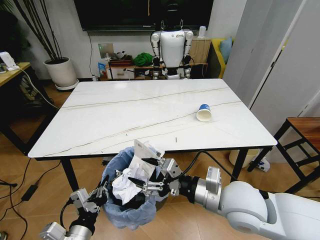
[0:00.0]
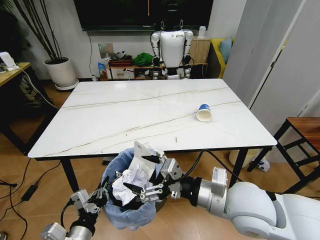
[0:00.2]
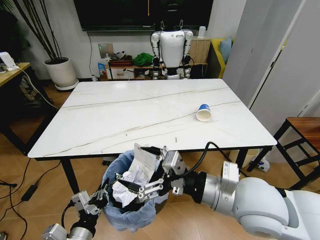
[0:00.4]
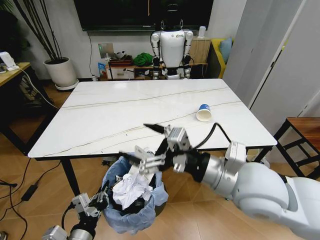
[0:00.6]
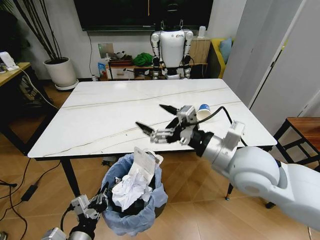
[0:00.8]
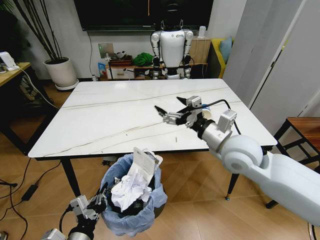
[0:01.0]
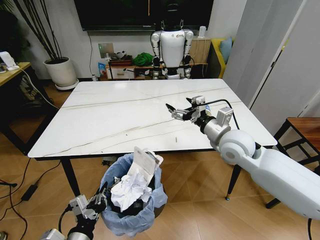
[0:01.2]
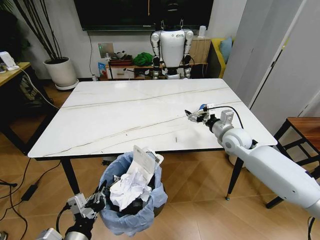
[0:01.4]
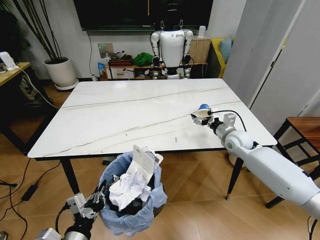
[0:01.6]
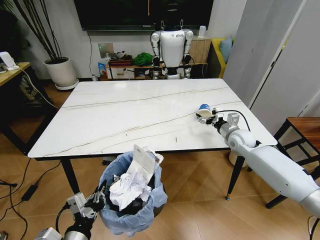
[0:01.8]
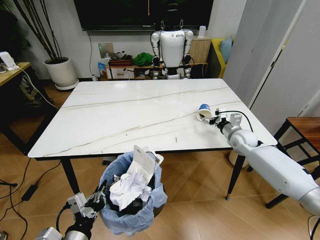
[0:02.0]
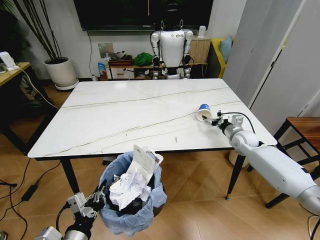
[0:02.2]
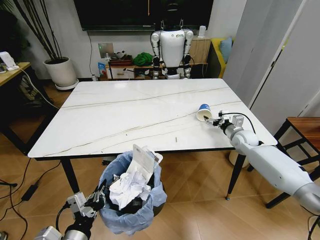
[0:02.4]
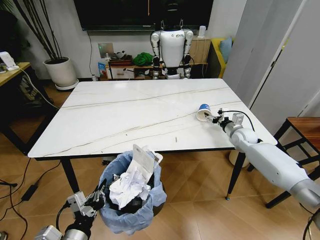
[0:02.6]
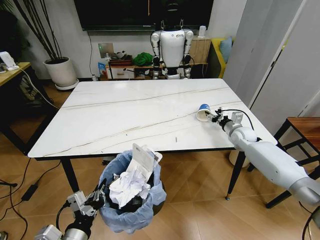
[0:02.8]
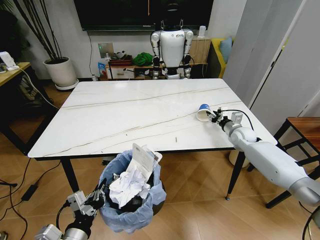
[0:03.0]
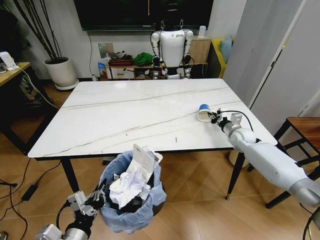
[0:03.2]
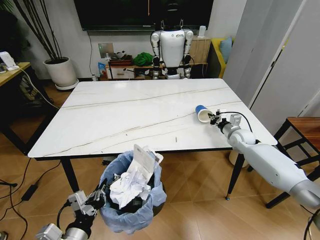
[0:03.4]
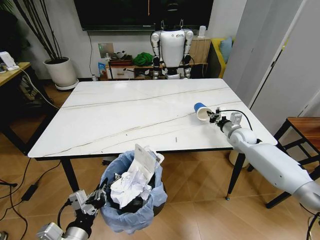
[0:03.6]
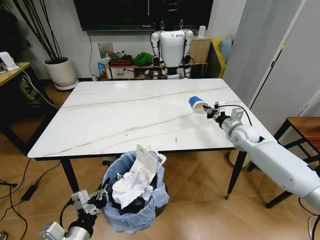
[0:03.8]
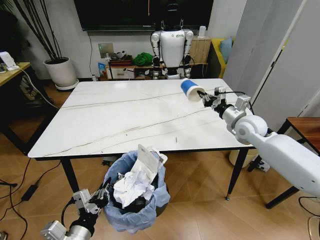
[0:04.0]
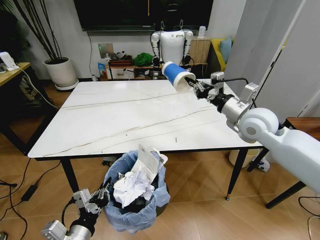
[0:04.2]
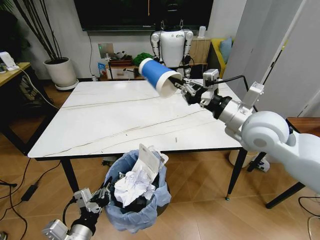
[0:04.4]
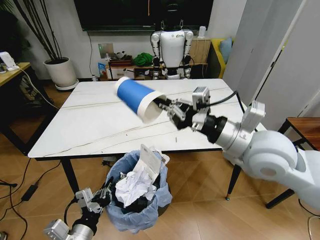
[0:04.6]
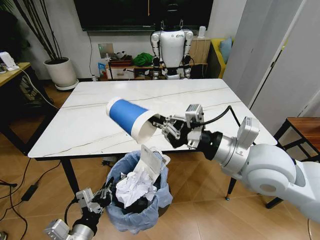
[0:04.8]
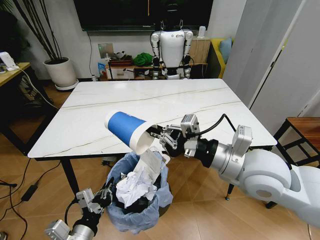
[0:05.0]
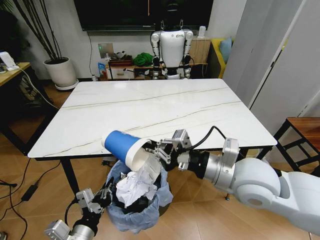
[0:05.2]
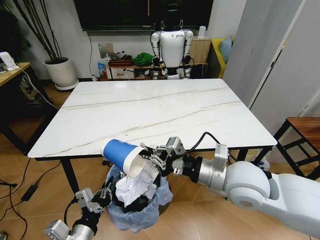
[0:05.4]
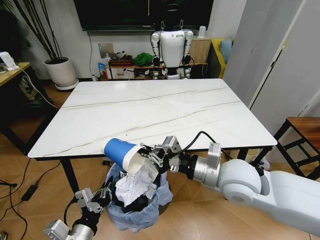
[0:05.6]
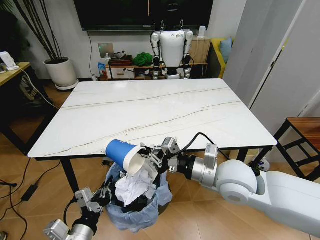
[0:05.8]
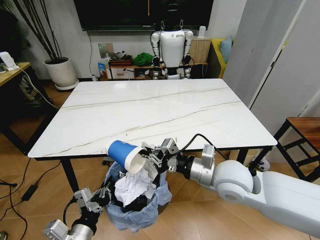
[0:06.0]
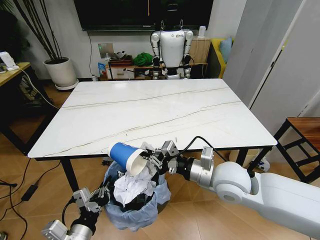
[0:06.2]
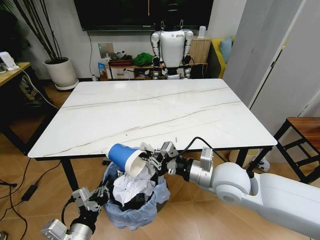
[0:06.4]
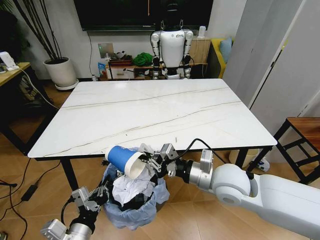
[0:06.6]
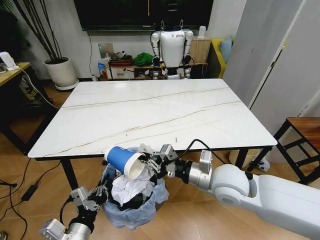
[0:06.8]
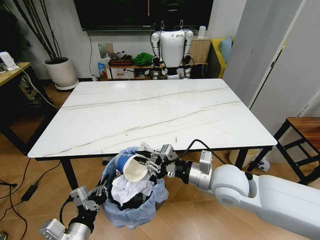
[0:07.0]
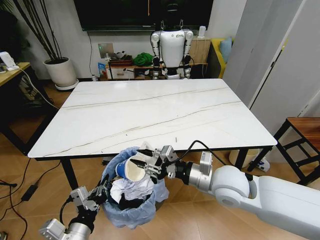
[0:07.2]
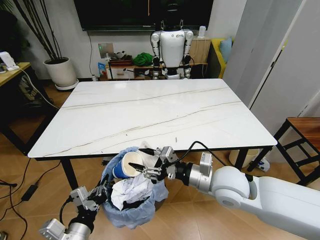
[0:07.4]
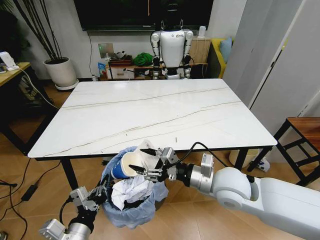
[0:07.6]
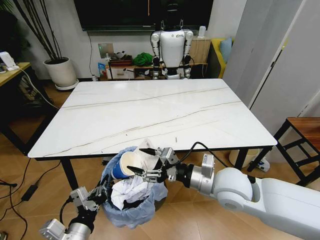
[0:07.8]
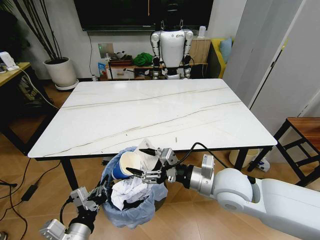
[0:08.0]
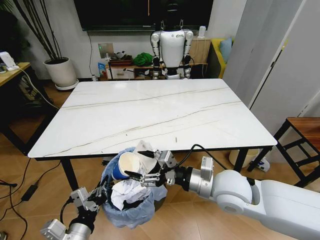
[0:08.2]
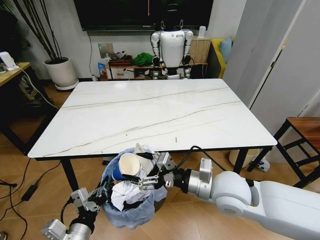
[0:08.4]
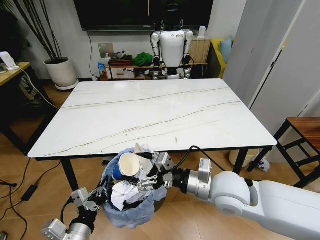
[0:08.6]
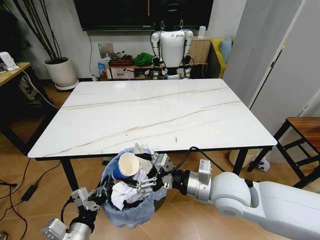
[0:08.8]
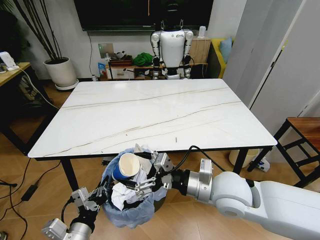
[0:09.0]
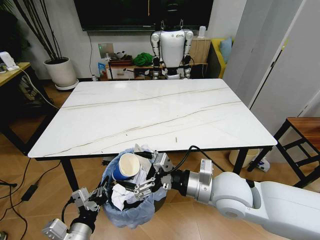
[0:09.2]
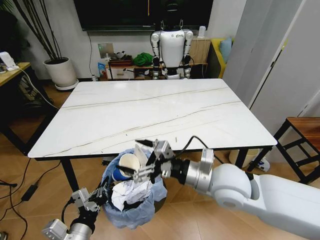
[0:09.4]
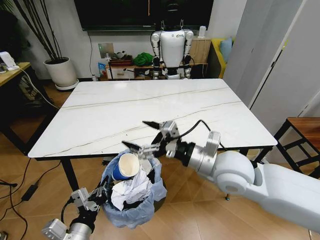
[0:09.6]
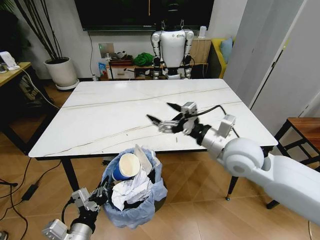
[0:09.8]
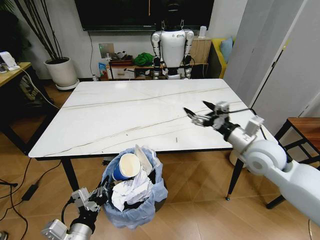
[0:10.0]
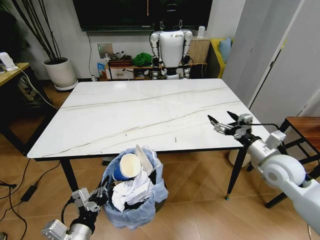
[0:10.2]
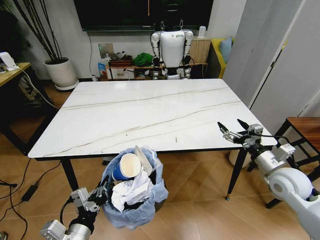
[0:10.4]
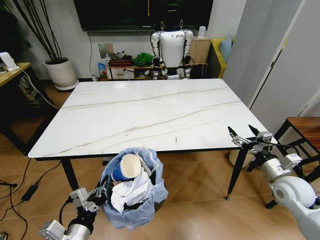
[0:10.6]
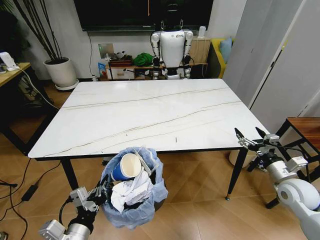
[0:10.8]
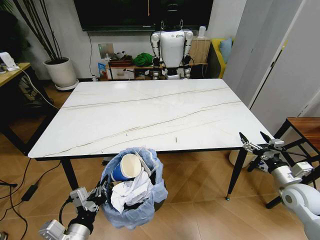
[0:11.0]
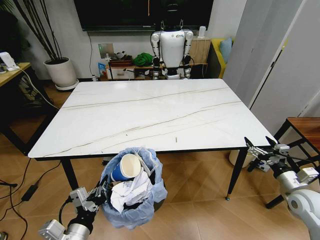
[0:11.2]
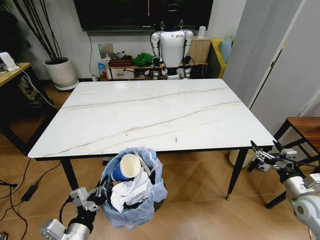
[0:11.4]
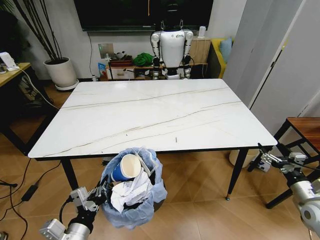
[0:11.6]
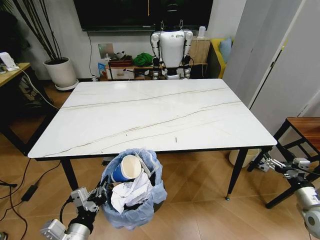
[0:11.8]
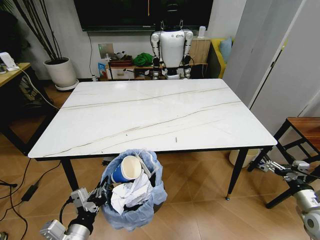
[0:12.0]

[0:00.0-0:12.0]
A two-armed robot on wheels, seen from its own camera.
Task of the whole recording: Pick up the trash bin and place the trash from the table into it.
0:00.0 to 0:01.6: The right gripper travels forward and to the right by some 30 cm, and opens its fingers.
0:01.6 to 0:03.0: The right gripper shifts about 10 cm to the right and forward, and closes its fingers.
0:03.0 to 0:04.4: The right gripper shifts some 30 cm upward, backward and to the left, and closes.
0:04.4 to 0:06.0: The right gripper shifts roughly 15 cm downward, backward and to the left.
0:06.0 to 0:07.6: The right gripper opens up.
0:07.6 to 0:09.0: The grippers make only small movements.
0:09.0 to 0:10.4: The right gripper travels to the right by about 20 cm.
0:10.4 to 0:12.0: The right gripper goes approximately 20 cm to the right, downward and backward.

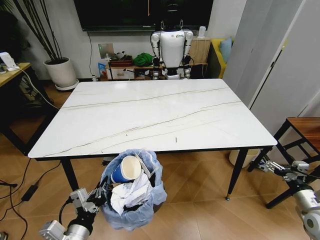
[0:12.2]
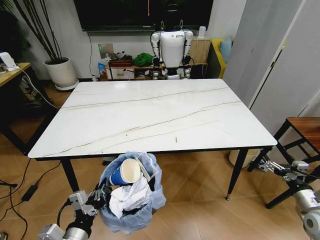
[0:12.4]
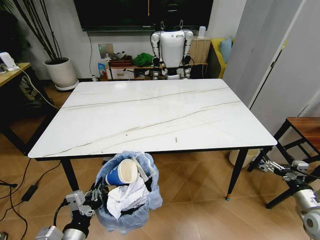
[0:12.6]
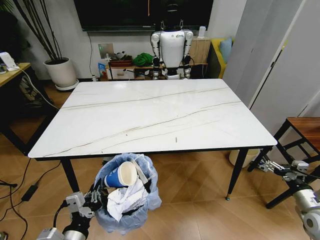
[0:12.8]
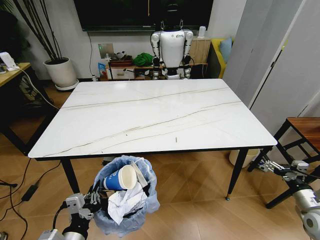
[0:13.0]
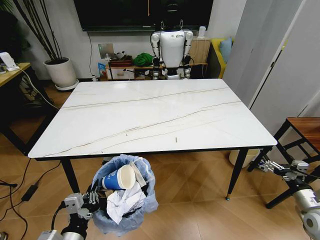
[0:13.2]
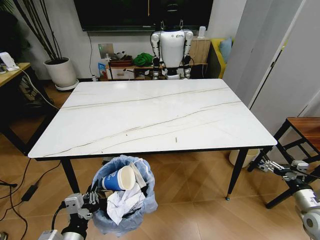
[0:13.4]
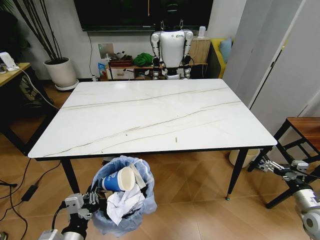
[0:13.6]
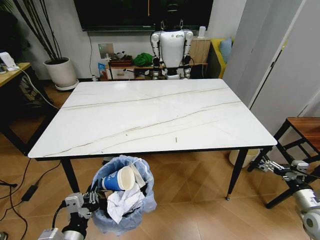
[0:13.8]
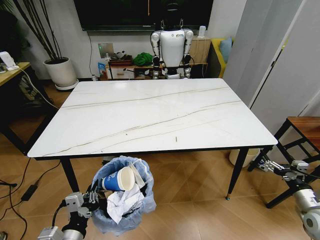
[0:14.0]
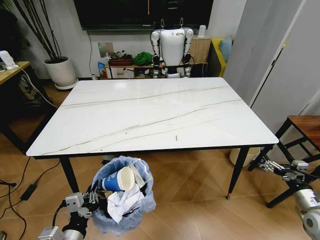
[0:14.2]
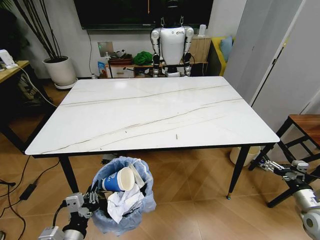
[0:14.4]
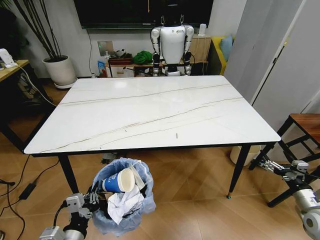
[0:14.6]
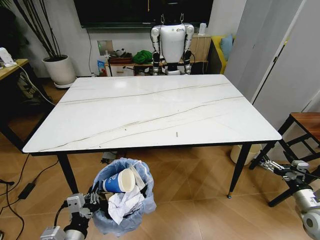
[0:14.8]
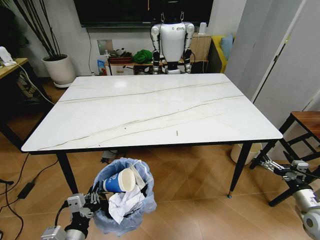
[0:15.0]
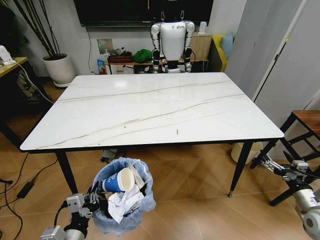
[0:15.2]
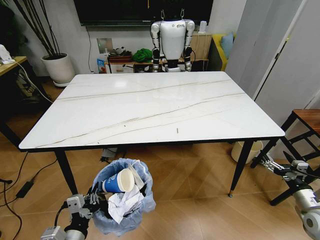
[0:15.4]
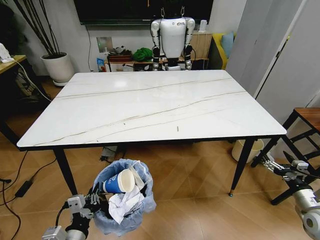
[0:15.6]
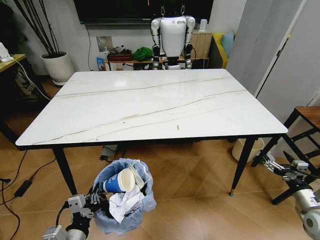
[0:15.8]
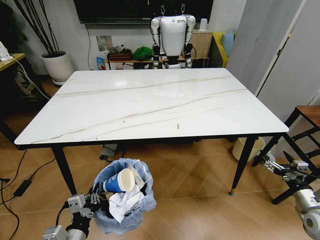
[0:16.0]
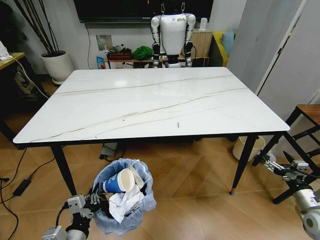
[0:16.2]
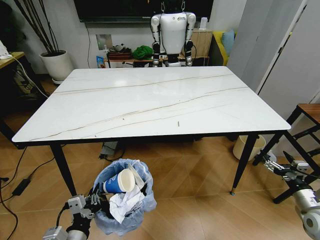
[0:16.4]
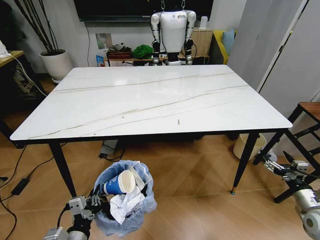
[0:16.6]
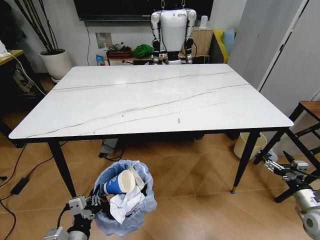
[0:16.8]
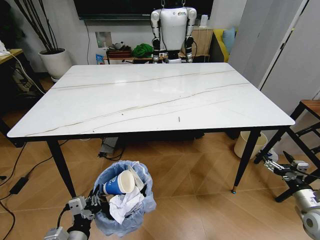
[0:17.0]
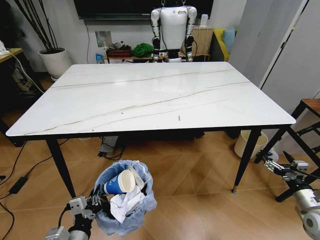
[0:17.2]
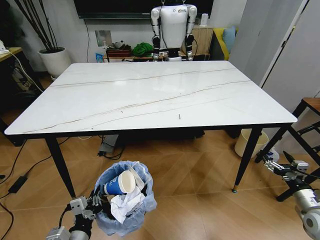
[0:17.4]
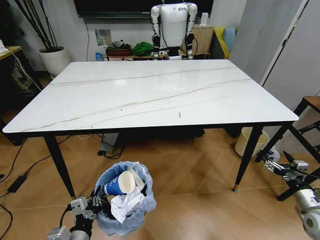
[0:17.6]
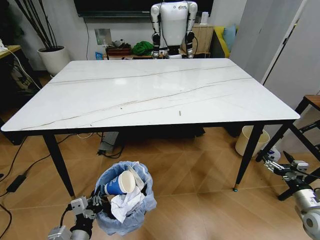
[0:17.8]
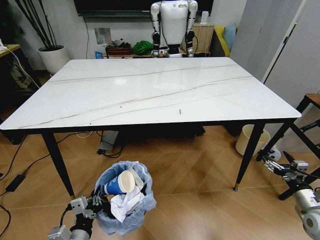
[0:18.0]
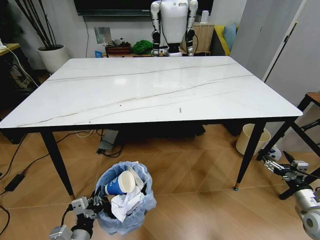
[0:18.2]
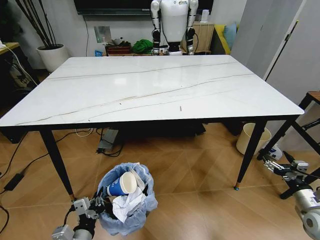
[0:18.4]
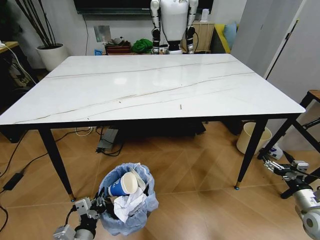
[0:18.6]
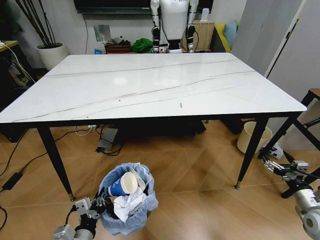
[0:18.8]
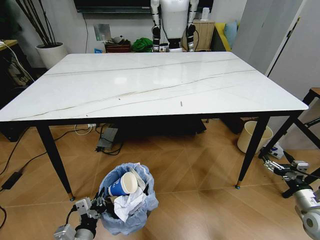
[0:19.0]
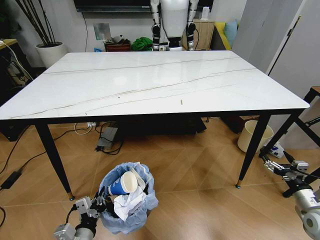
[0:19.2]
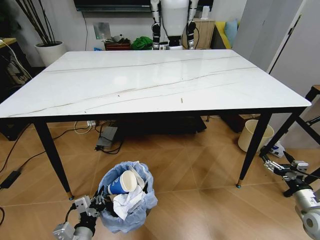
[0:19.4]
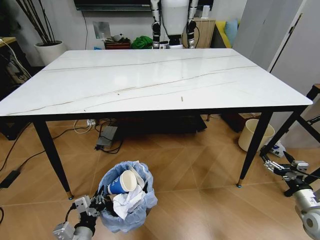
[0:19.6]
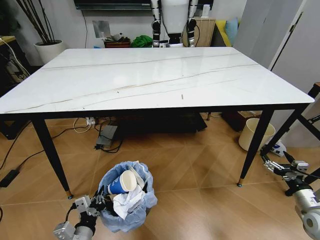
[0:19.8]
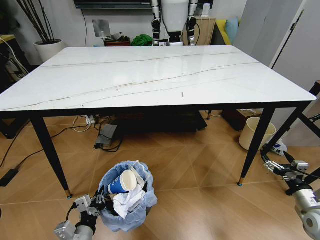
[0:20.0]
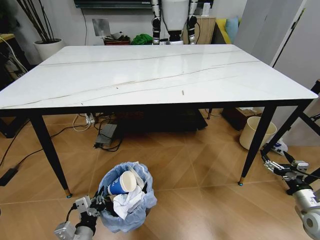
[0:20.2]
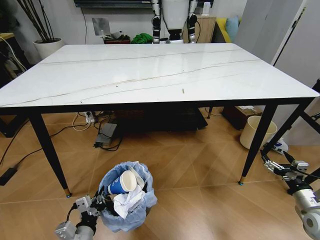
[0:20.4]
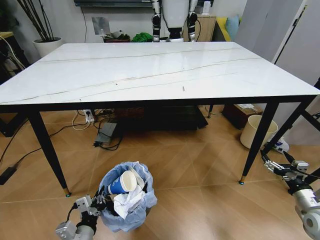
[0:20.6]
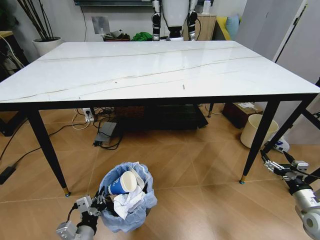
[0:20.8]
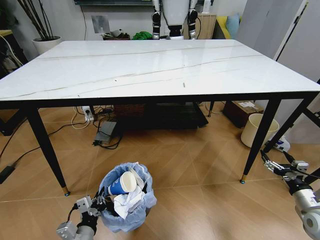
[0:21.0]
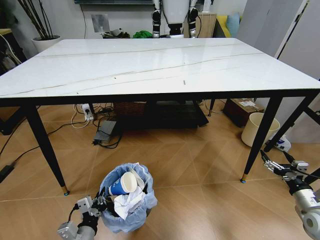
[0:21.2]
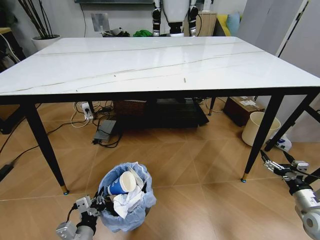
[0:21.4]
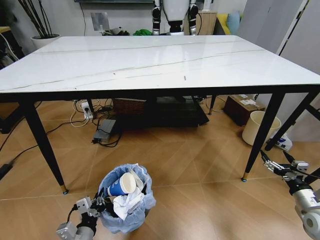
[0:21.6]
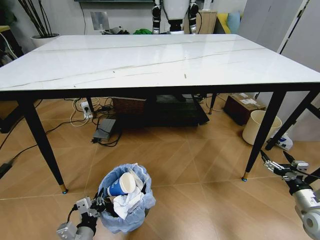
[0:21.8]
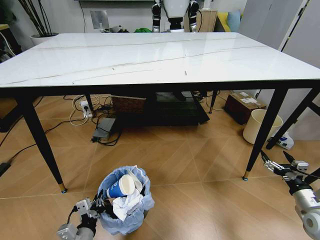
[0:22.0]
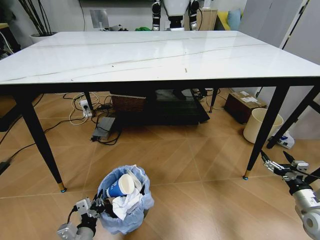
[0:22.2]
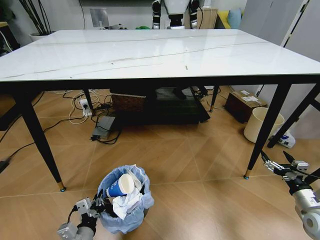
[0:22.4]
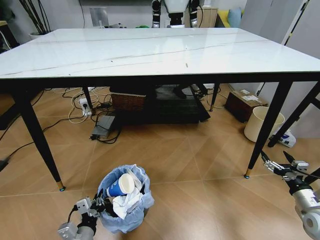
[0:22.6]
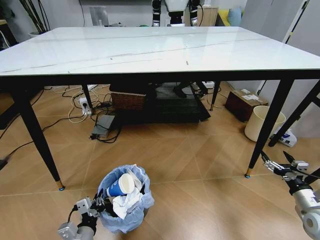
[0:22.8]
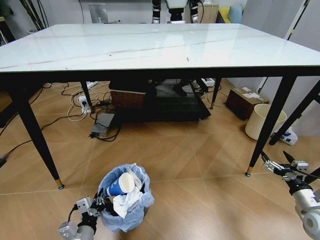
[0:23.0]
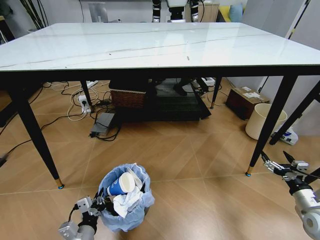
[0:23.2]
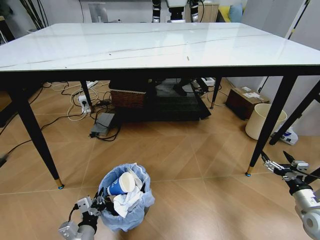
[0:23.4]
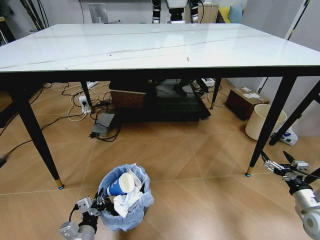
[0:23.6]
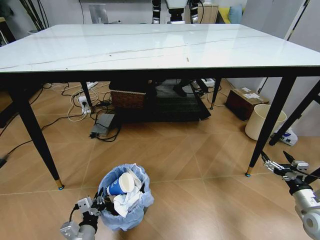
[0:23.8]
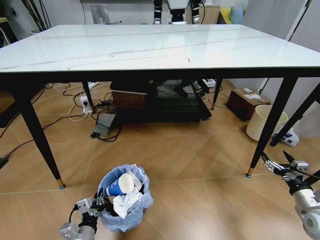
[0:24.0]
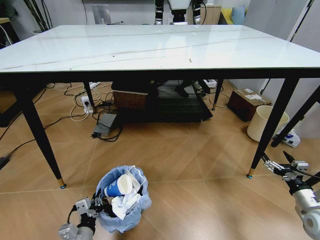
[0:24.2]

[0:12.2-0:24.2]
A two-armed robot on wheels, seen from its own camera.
Task of the whole recording: Pick up the trash bin and place the trash from the table into it.
0:12.2 to 0:13.8: The grippers move only a little.
0:22.6 to 0:24.2: Neither gripper changes place.
